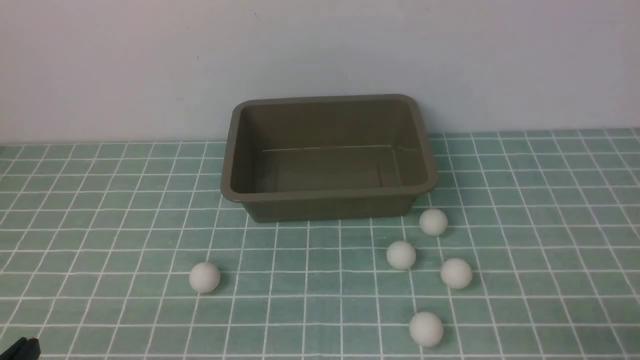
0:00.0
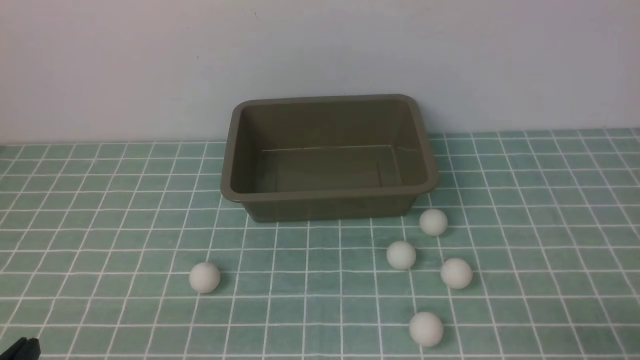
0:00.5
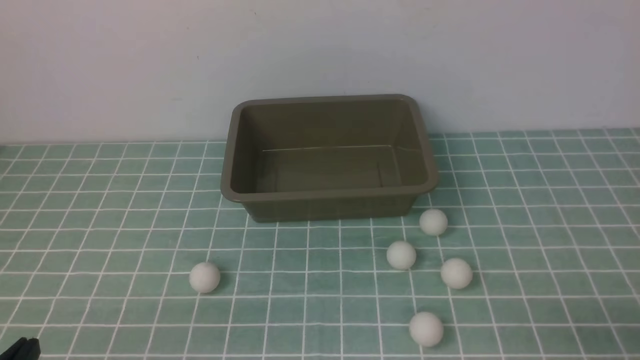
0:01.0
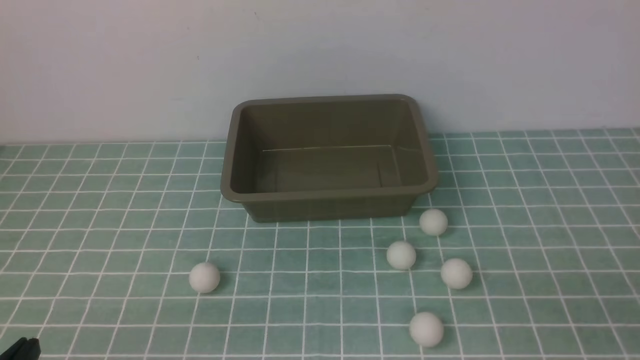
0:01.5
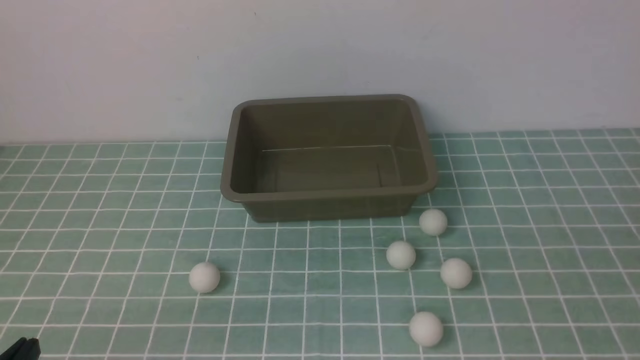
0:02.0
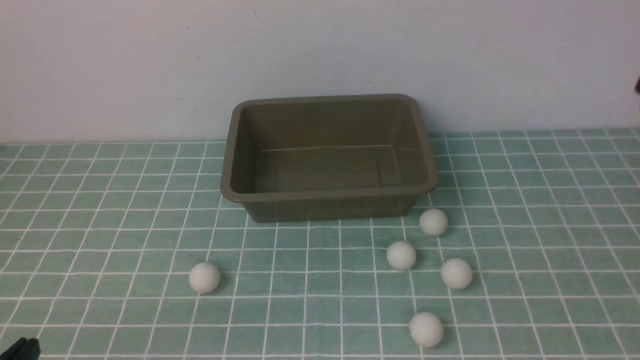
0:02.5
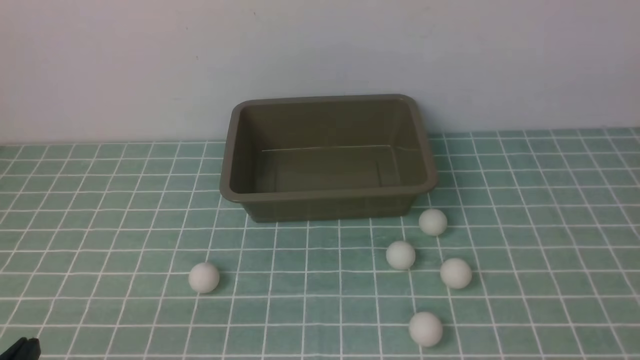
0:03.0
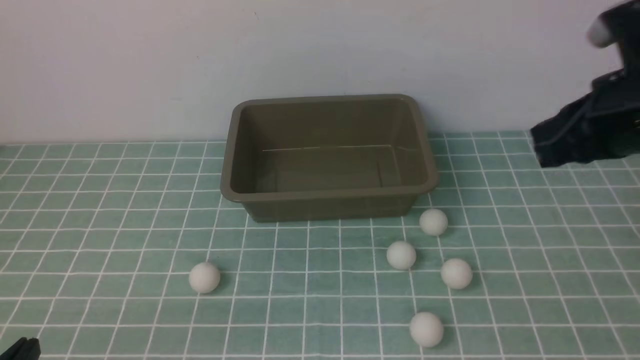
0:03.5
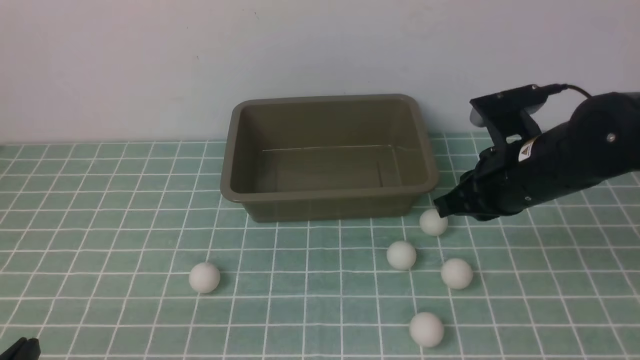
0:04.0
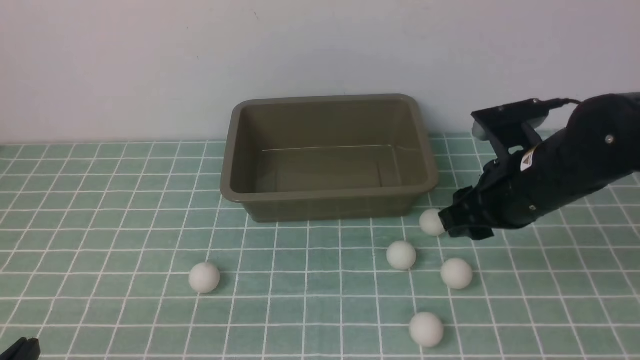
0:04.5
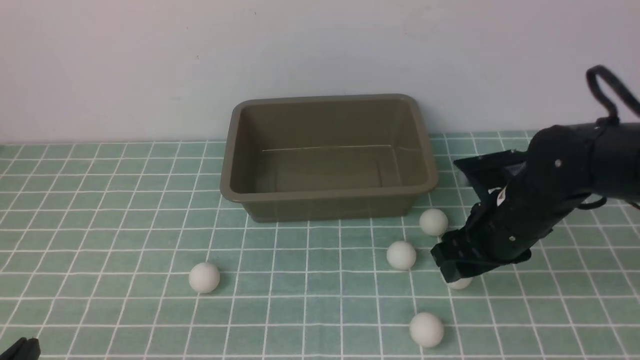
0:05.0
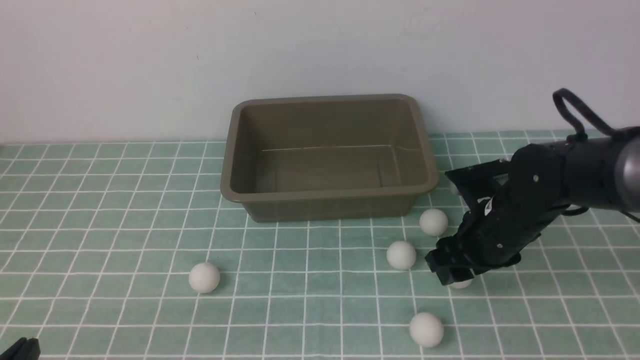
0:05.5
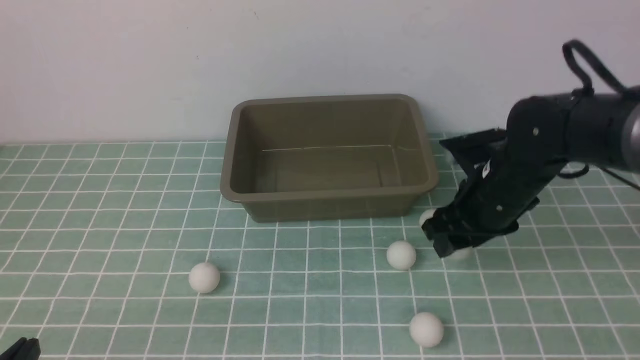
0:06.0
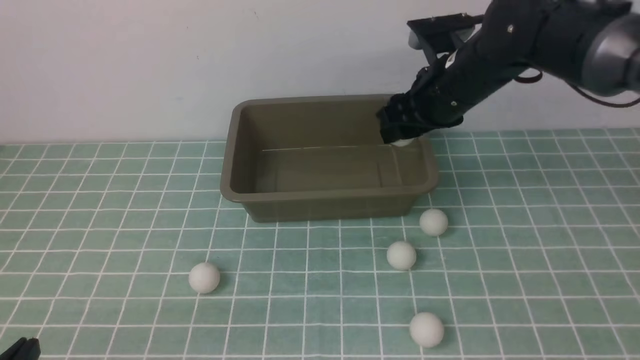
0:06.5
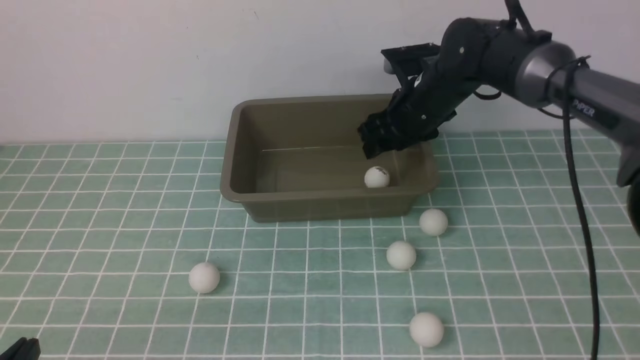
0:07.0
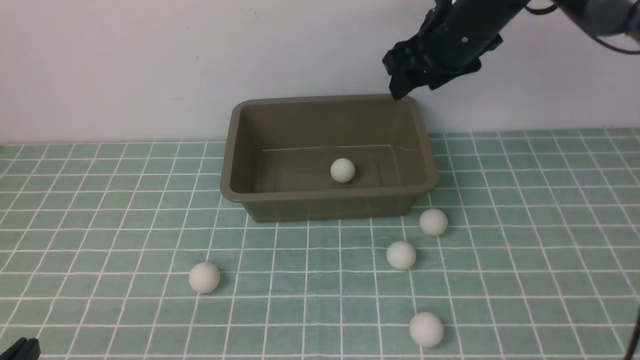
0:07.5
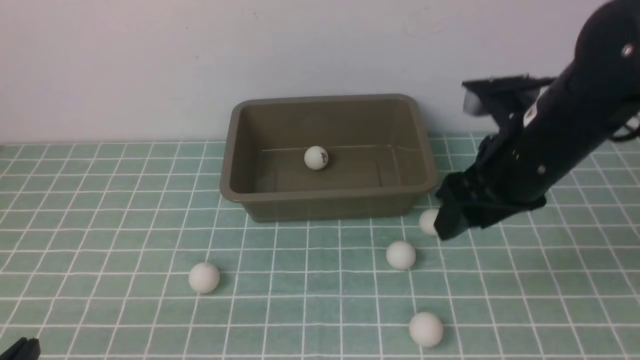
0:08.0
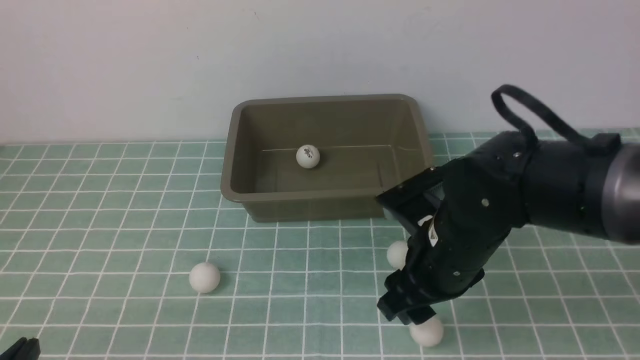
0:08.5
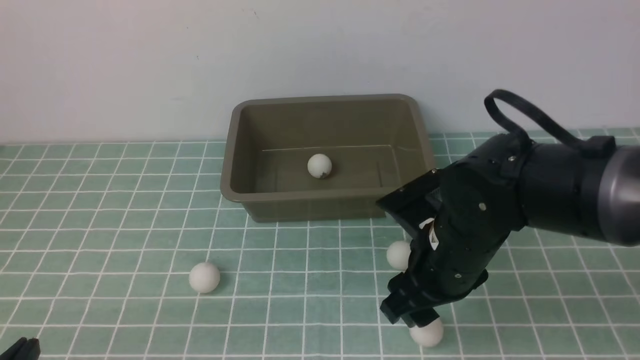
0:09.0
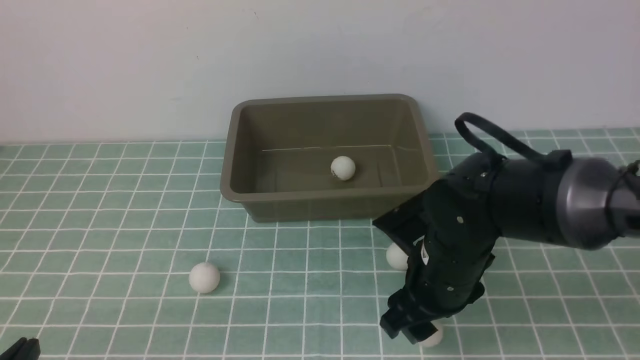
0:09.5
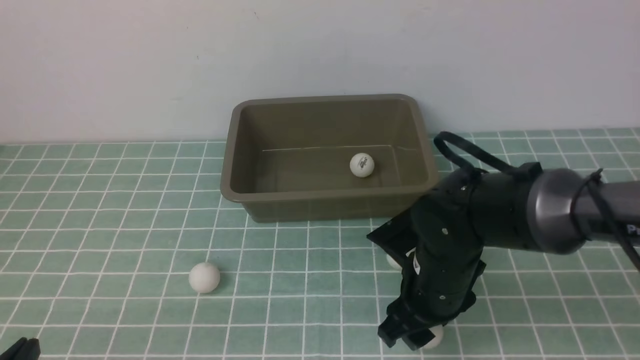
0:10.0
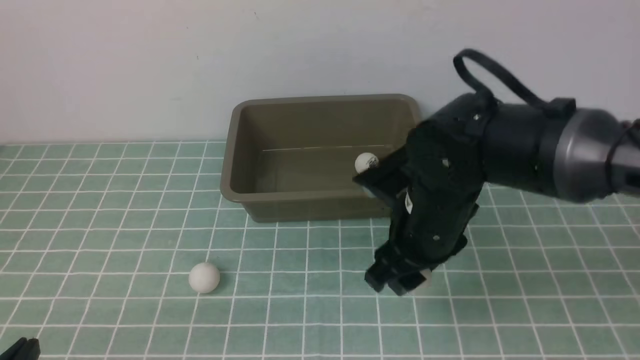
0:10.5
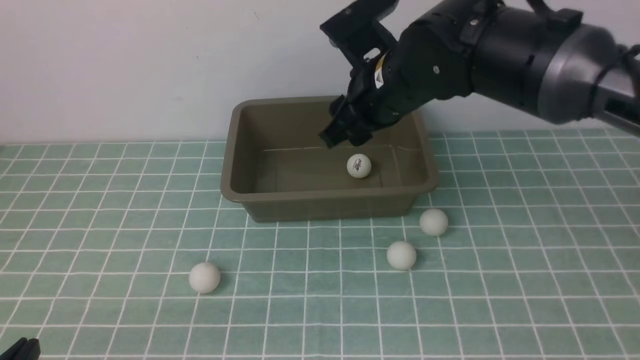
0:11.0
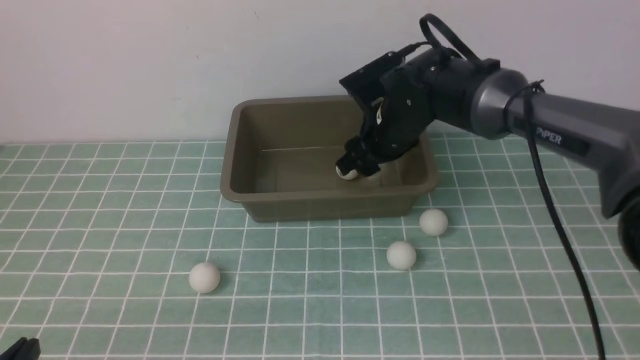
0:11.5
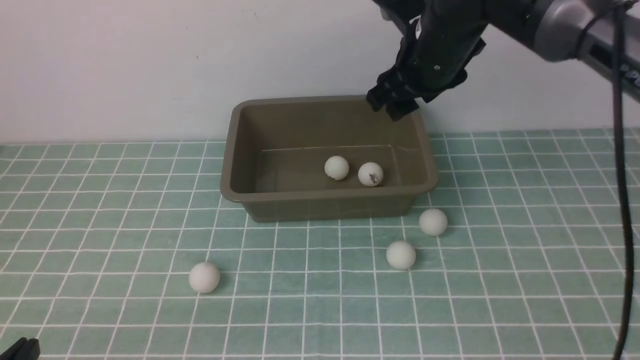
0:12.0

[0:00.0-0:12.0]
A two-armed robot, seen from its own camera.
Step, 0:00.0 to 0:06.0: use the right arm to clamp the table tennis ball closest to it.
Step, 0:06.5 to 0:07.0: use the right arm to put the table tennis ball into the box.
Step, 0:07.5 to 0:10.0: use the right arm to clamp the table tennis ball closest to it.
Step, 0:10.5 to 0:11.5: use the right arm to put the table tennis ball into the box.
0:02.0 to 0:04.0: The right gripper moves forward and to the left, some 25 cm.
0:04.0 to 0:06.0: The right gripper goes downward and returns, about 10 cm each way, and opens.
0:06.0 to 0:08.0: The right gripper goes roughly 5 cm backward.
0:08.0 to 0:10.0: The right gripper moves downward, approximately 10 cm.
0:10.0 to 0:12.0: The right gripper heads upward and forward, covering roughly 20 cm.

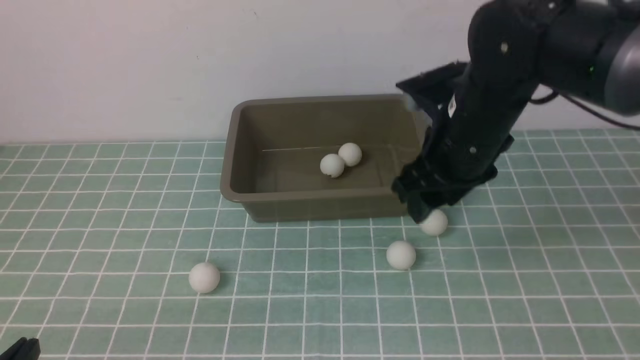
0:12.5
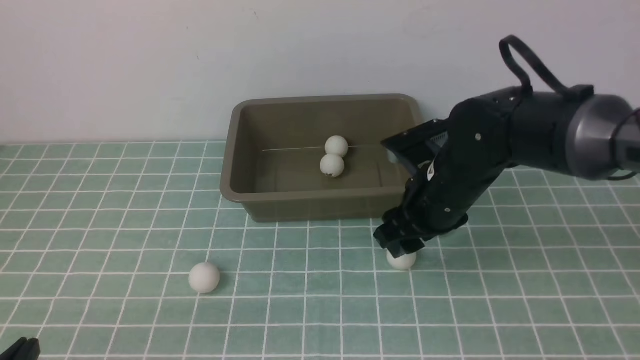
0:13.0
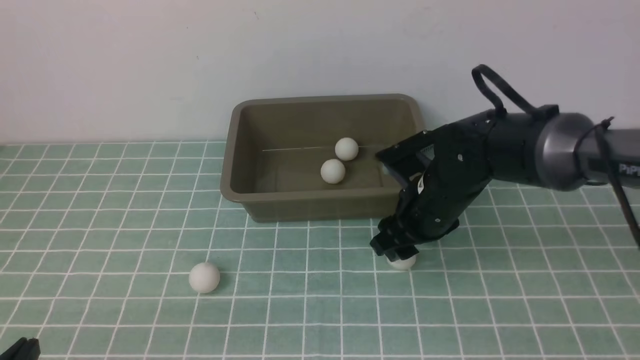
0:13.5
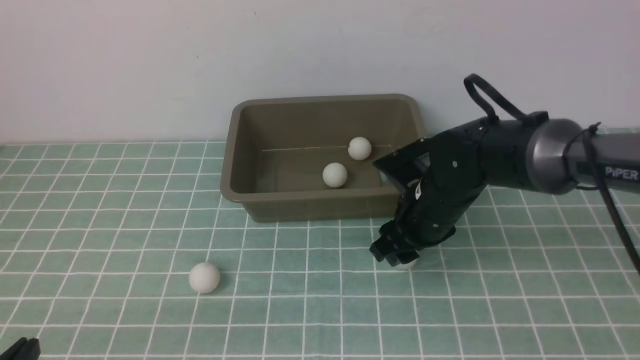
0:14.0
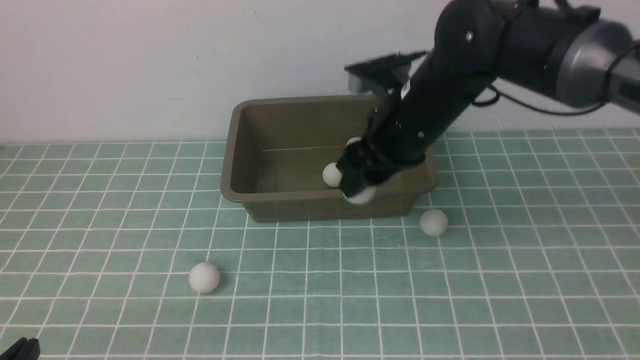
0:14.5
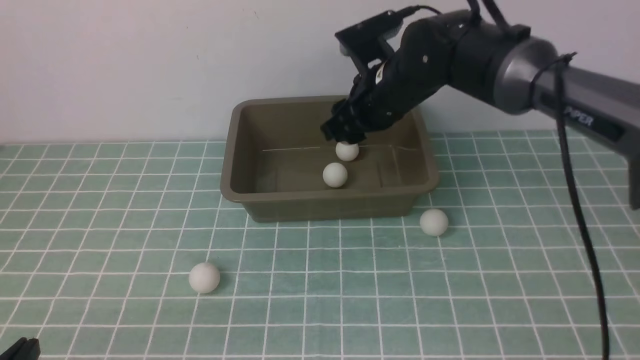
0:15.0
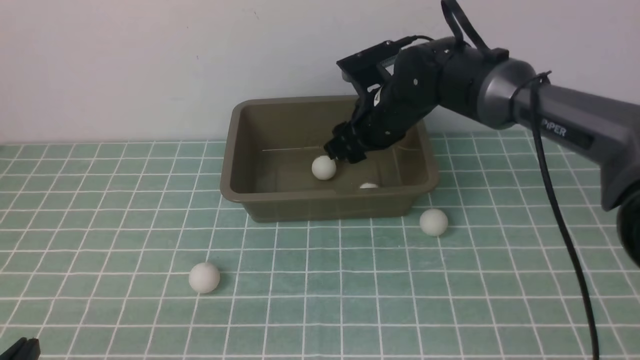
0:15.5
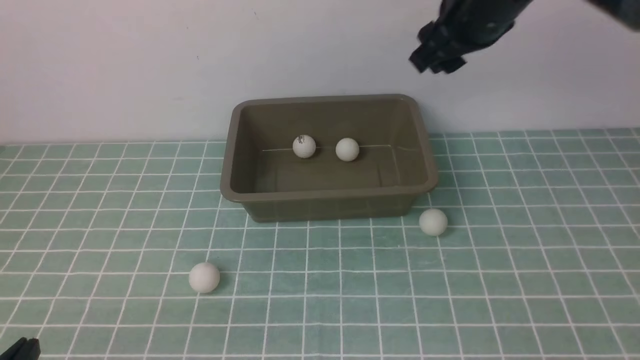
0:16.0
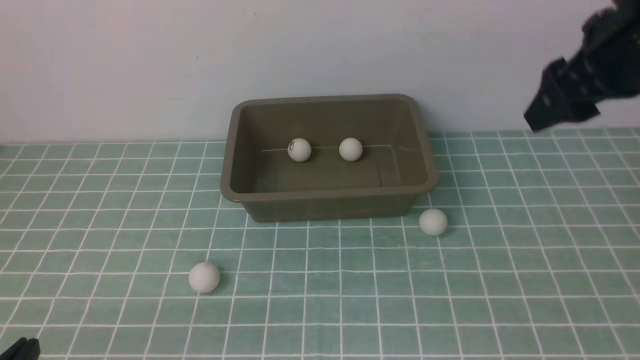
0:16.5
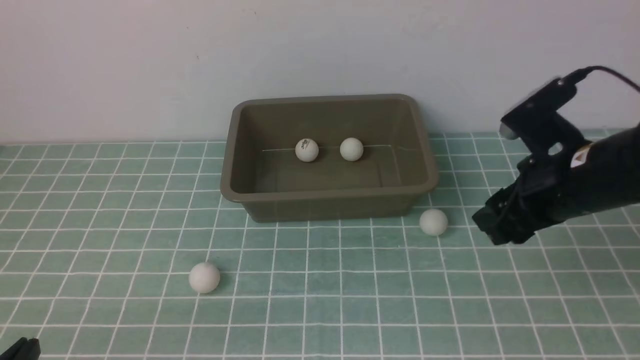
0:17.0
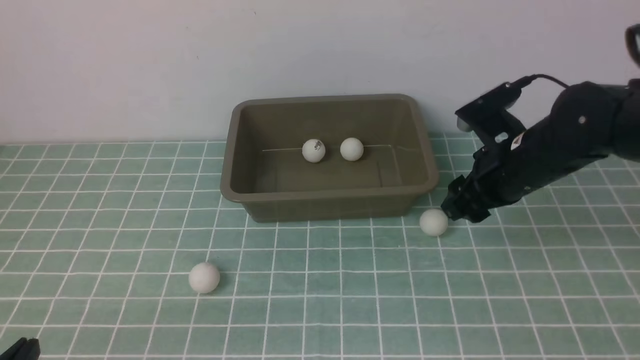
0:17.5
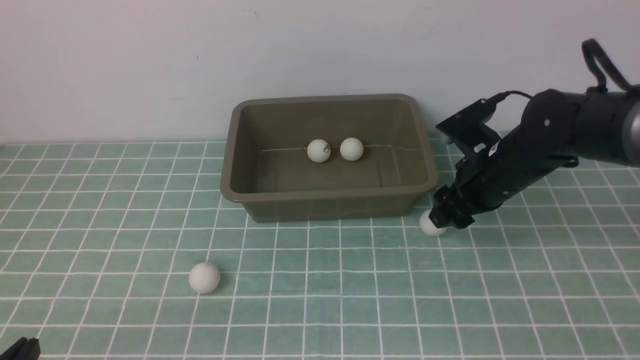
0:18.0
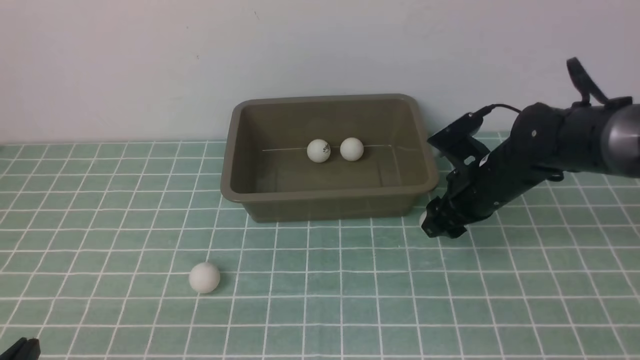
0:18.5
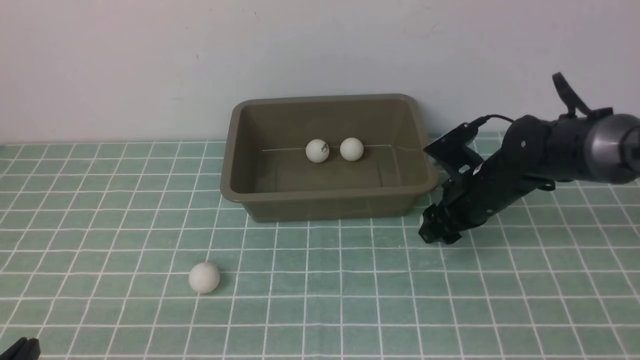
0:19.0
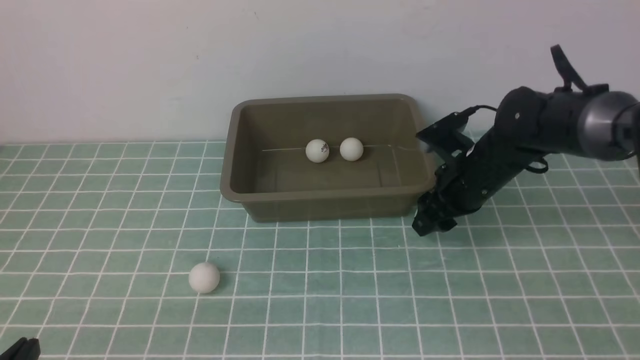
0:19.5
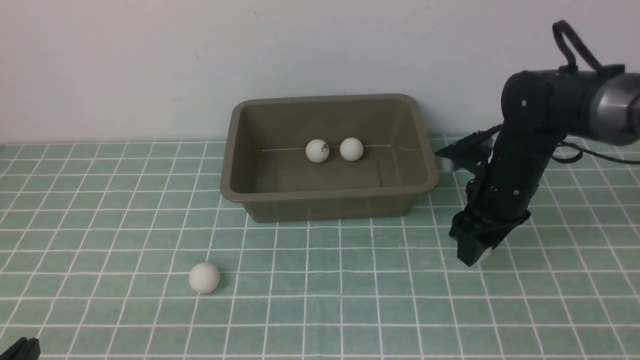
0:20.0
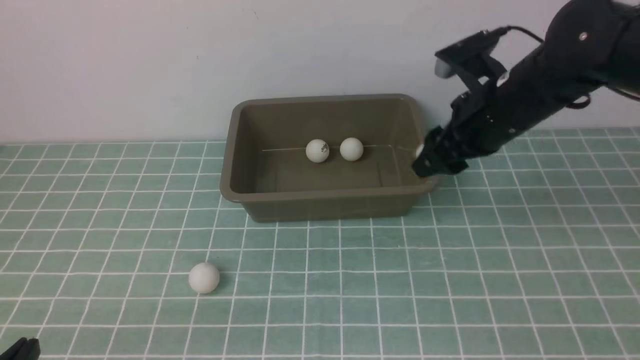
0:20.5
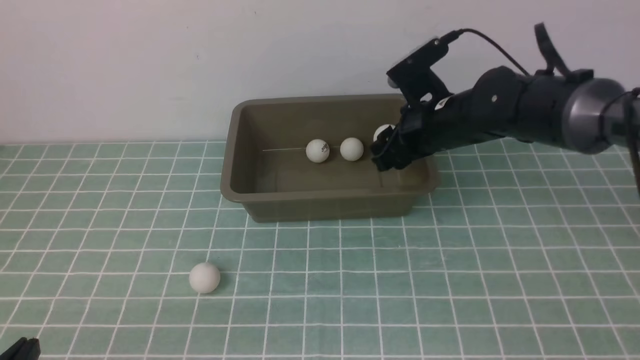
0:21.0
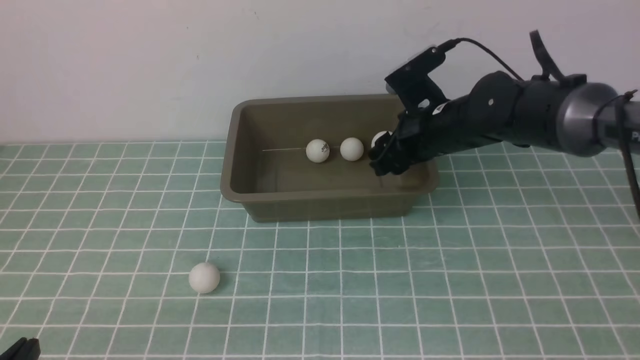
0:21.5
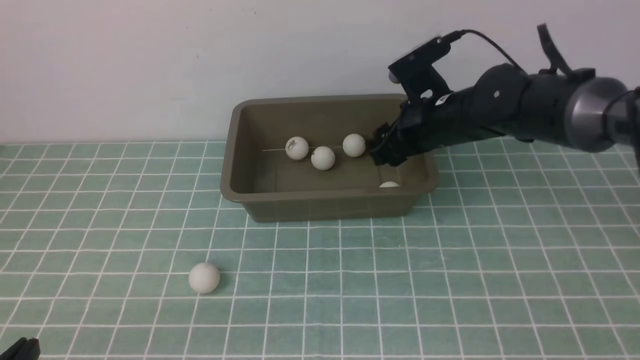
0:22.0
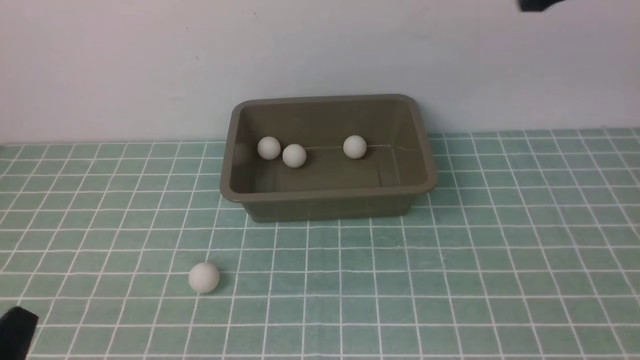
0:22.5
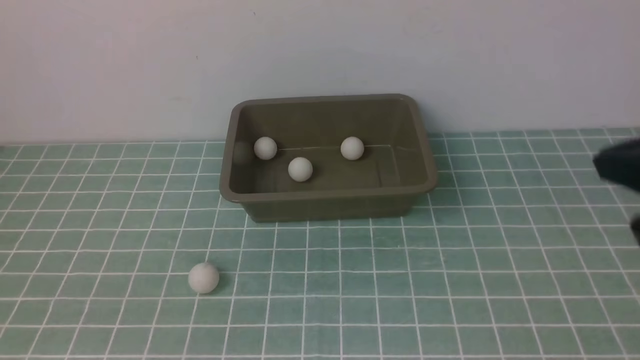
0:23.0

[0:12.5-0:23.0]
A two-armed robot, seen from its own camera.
Step, 0:12.5 to 0:14.0: use the right arm to clamp the table tennis ball closest to it.
Step, 0:14.5 to 0:15.5: use the right arm to put the table tennis ball into the box.
Step, 0:16.0 to 0:20.0: use the right arm to clamp the table tennis ball closest to it.
Step, 0:20.5 to 0:21.5: use the right arm to put the table tennis ball into the box.
0:12.5 to 0:14.5: The right gripper goes approximately 5 cm forward, and goes downward and returns, roughly 10 cm each way.
0:14.5 to 0:16.5: The right gripper moves up and down over approximately 20 cm, changing direction 2 times.
0:16.5 to 0:19.0: The right gripper goes some 20 cm downward and forward.
0:19.0 to 0:21.0: The right gripper goes some 10 cm upward and to the left.
0:21.0 to 0:23.0: The right gripper moves backward, upward and to the right, about 35 cm, and closes. Meanwhile the left gripper is displaced upward by some 5 cm.
